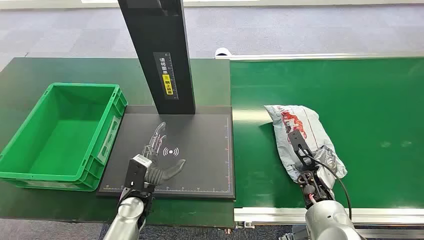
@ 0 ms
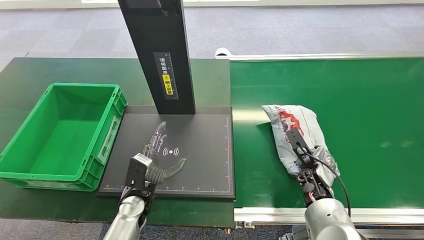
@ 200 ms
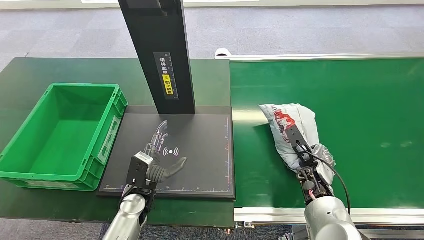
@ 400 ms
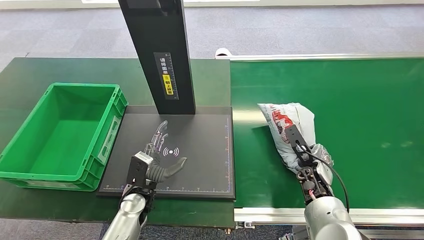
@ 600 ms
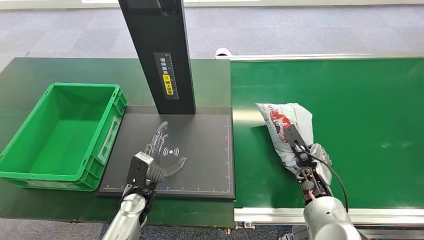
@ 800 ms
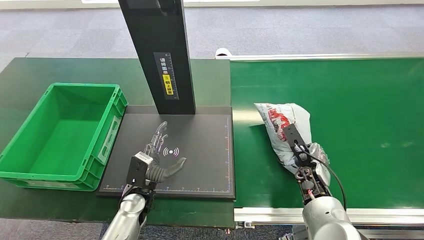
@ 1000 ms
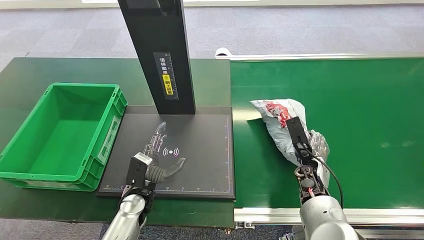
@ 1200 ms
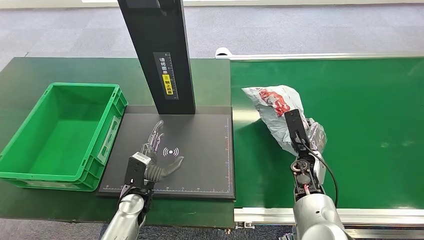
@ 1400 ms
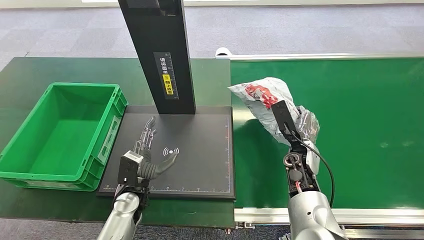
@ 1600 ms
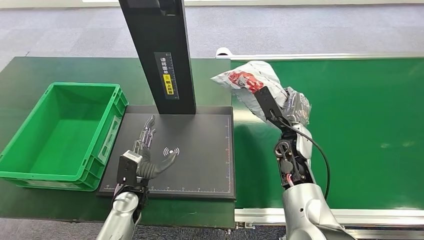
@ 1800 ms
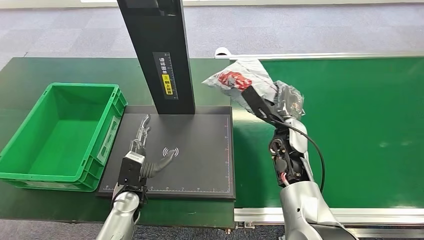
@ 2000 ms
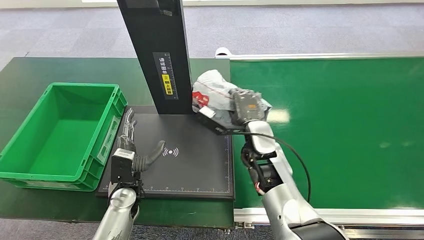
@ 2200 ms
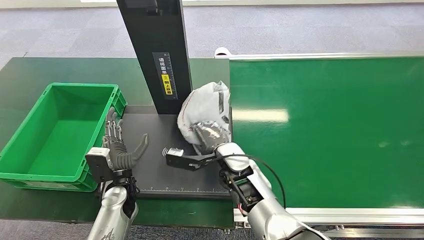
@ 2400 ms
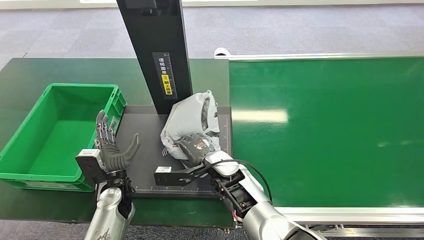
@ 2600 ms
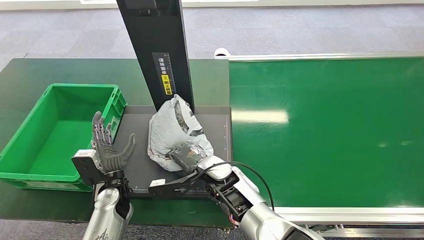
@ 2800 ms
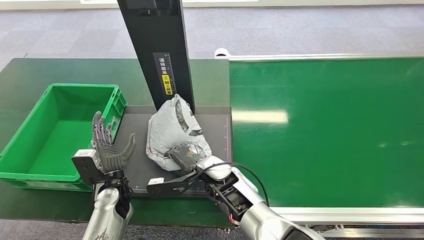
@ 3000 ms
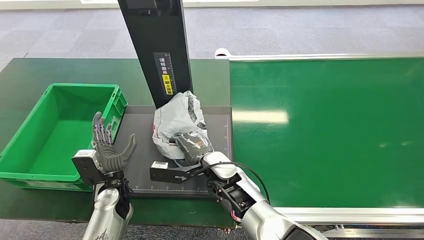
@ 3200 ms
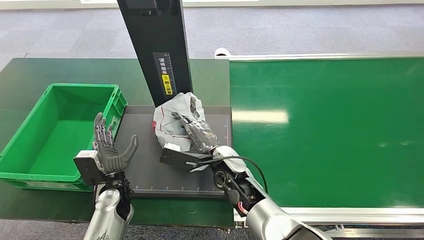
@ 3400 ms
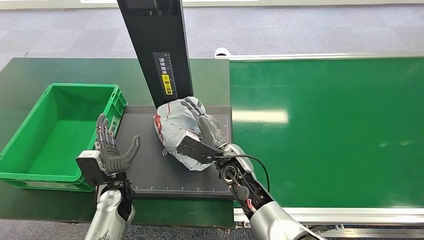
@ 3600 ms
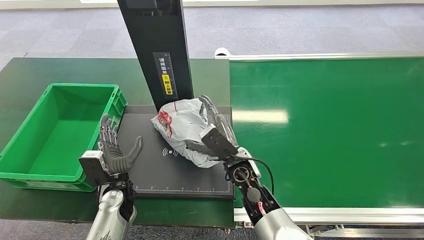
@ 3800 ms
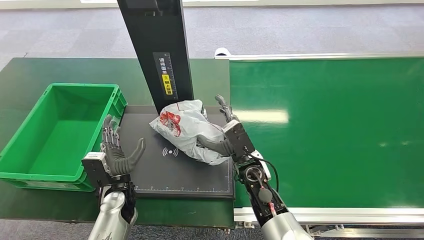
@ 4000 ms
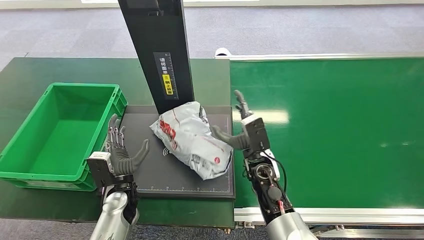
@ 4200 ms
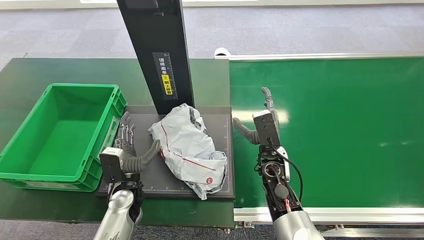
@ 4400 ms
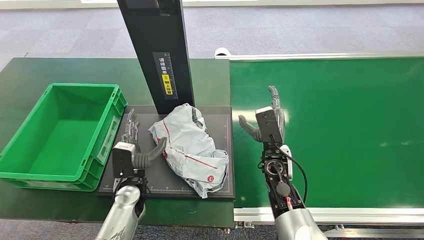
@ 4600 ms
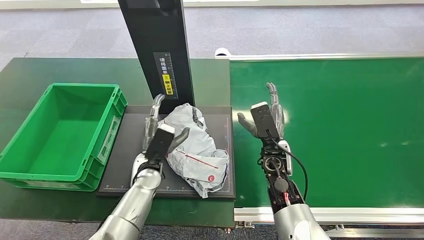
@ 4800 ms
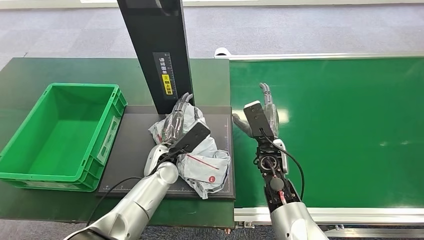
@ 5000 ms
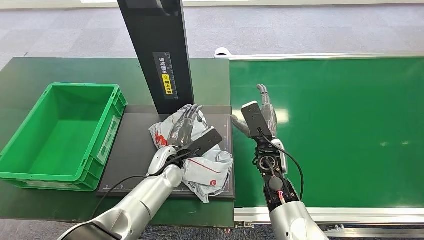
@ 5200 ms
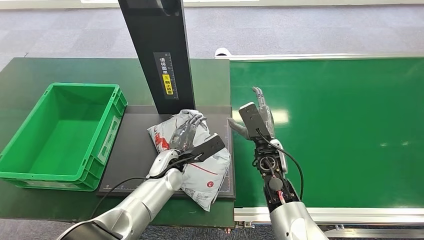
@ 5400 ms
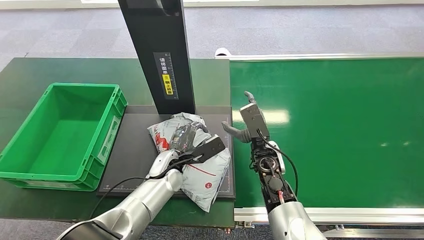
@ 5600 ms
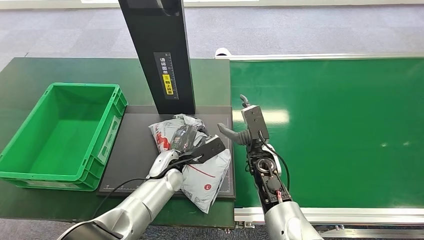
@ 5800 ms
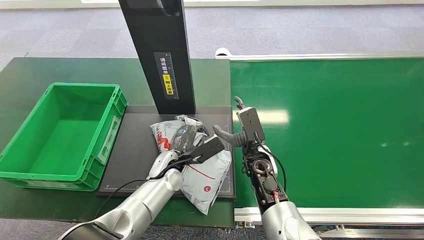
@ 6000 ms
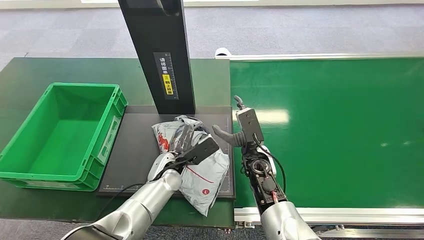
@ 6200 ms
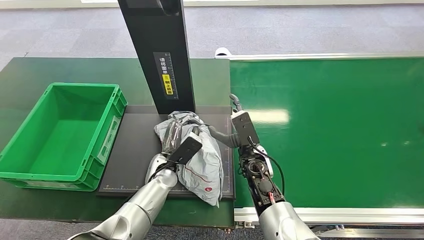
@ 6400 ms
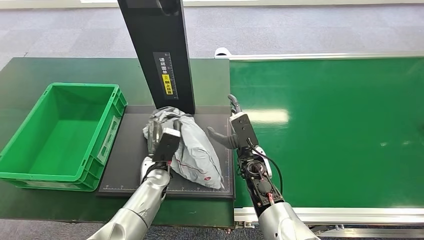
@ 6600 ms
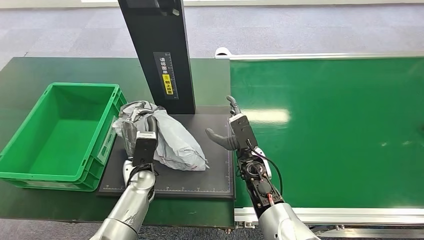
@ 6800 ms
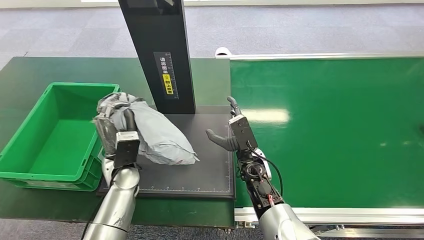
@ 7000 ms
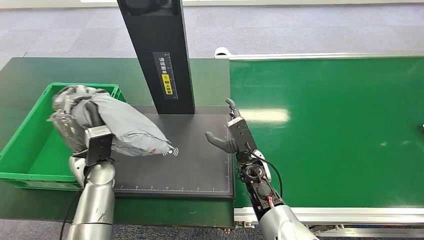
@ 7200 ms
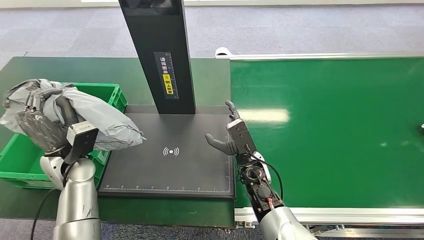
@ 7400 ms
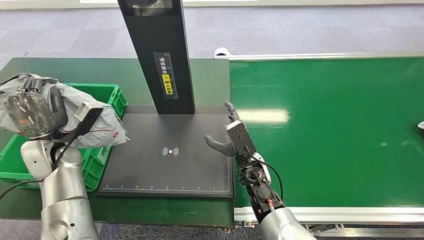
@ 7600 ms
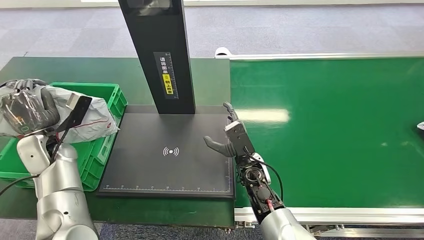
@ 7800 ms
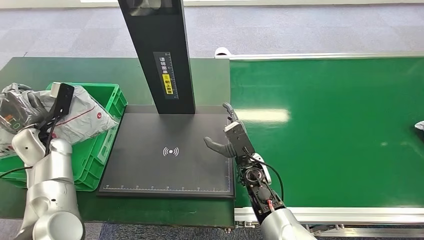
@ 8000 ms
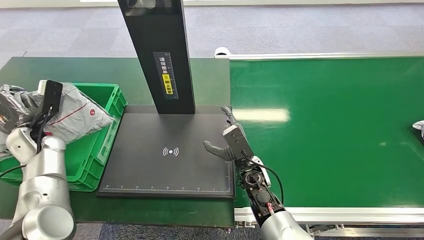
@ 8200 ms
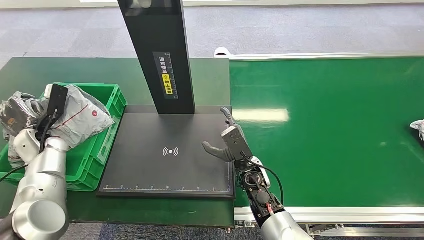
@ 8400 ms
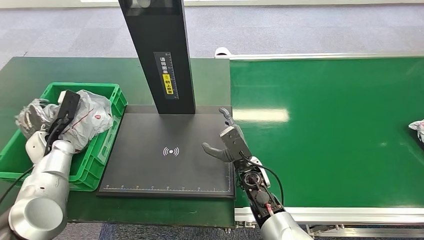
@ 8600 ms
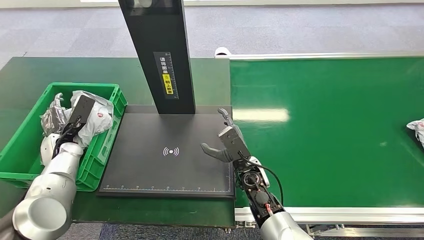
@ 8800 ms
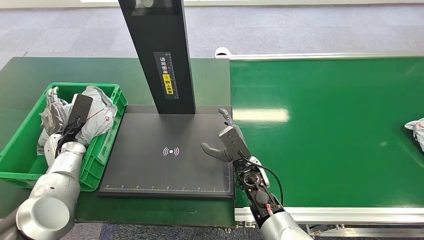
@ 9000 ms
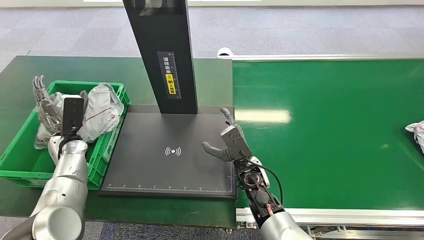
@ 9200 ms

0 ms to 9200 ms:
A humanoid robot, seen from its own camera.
Step, 0 ms to 1400 ms: Pick up the package from the conveyor belt.
Step, 1600 ms to 4200 ms: Place the package onto the inbound machine.
Step, 4400 ms to 6800 ms: Pick up the package from the inbound machine.
Step, 7000 ms to 9200 ms: Place the package into the parcel locker.
3000 ms to 4600 ms: The right hand shifts roughly 15 cm to the right.
4600 ms to 6200 ms: The left hand goes approximately 10 cm to the right.

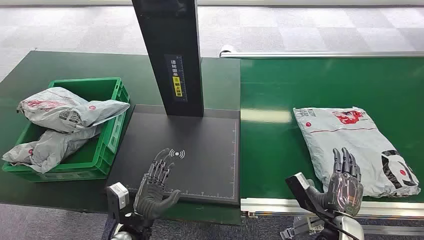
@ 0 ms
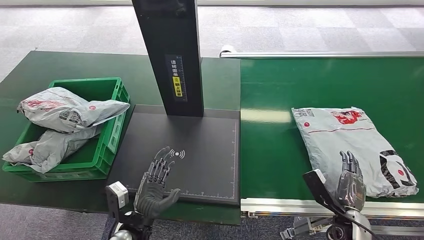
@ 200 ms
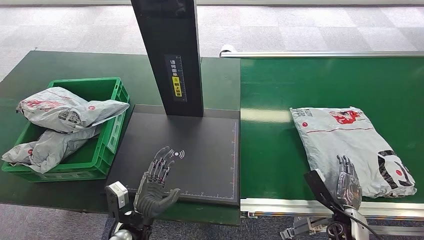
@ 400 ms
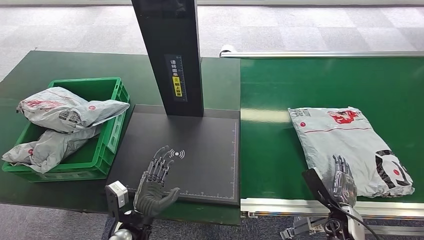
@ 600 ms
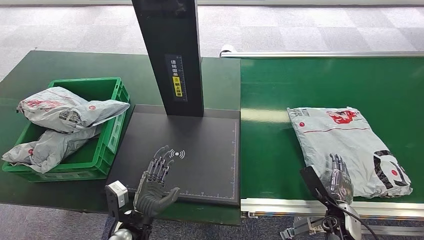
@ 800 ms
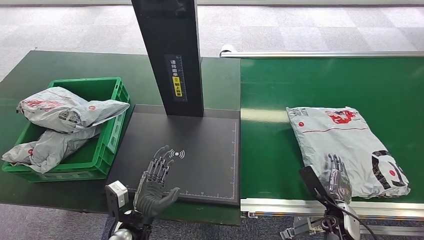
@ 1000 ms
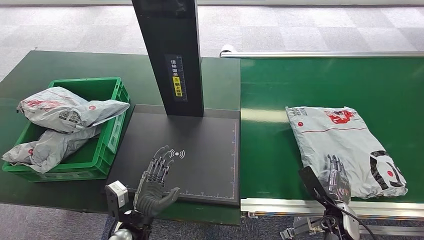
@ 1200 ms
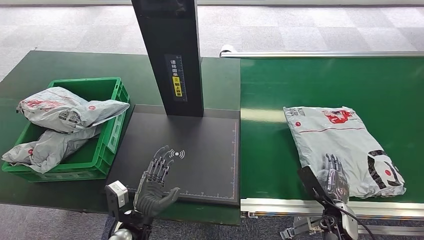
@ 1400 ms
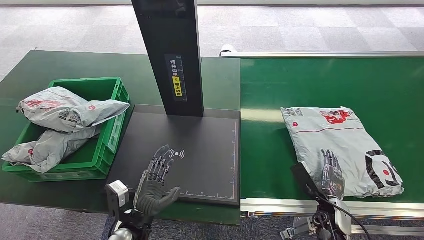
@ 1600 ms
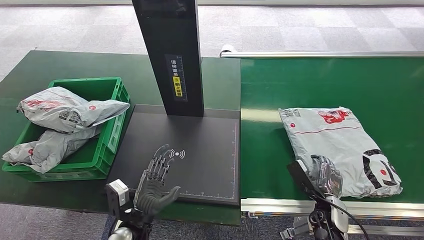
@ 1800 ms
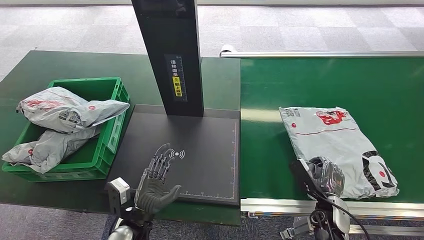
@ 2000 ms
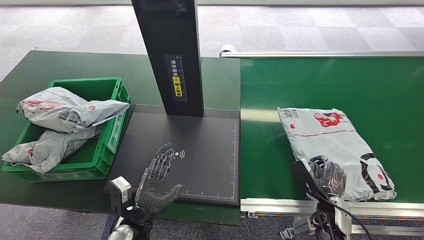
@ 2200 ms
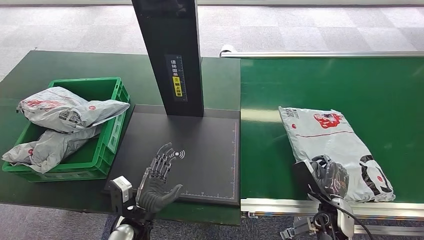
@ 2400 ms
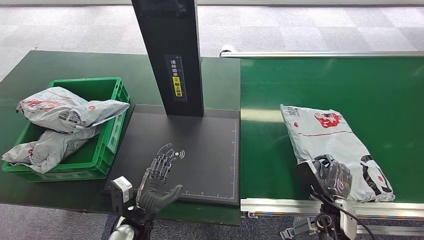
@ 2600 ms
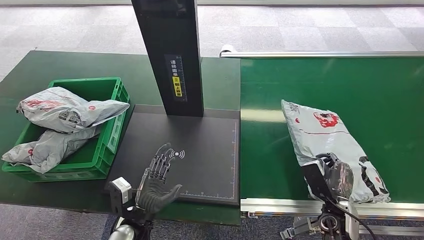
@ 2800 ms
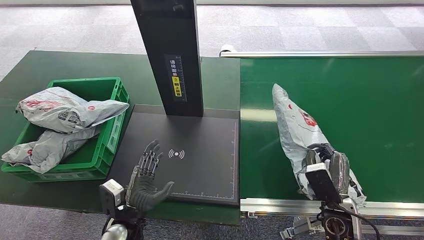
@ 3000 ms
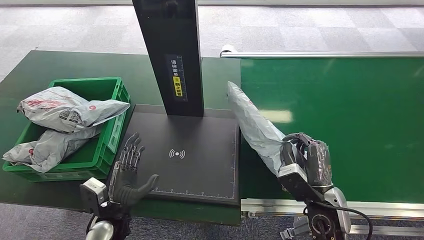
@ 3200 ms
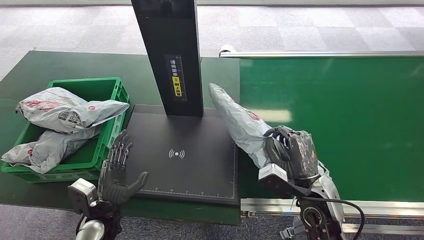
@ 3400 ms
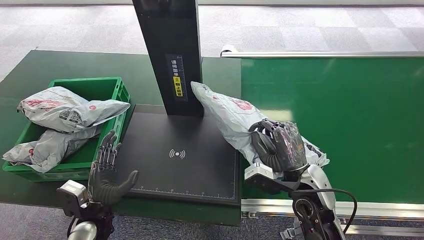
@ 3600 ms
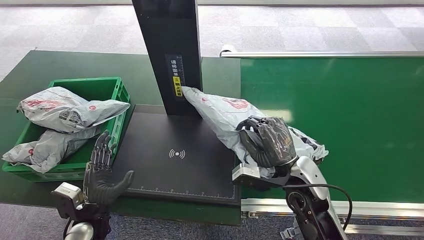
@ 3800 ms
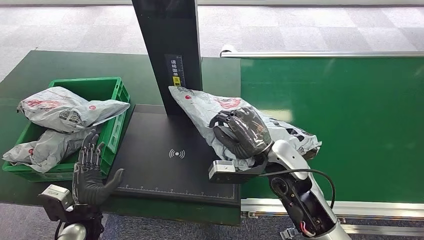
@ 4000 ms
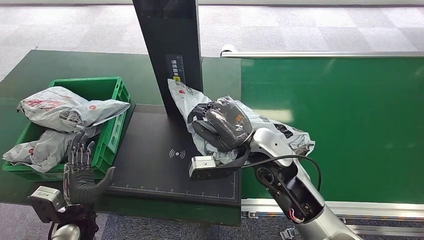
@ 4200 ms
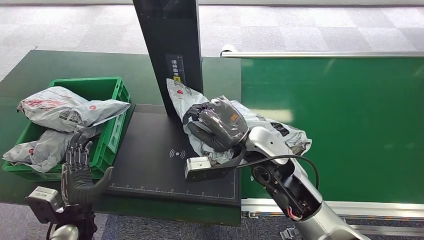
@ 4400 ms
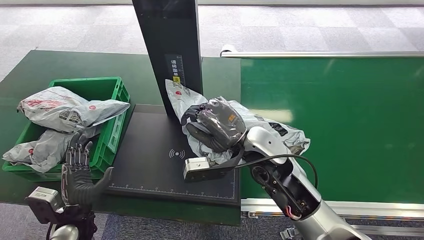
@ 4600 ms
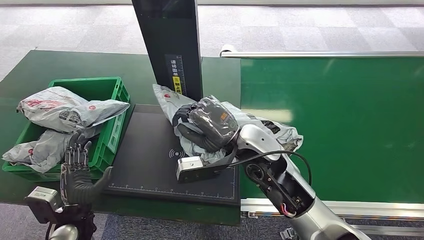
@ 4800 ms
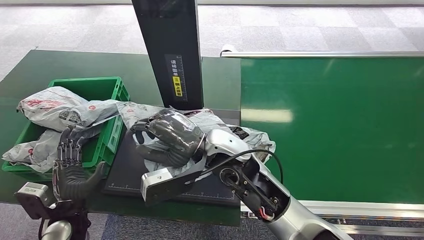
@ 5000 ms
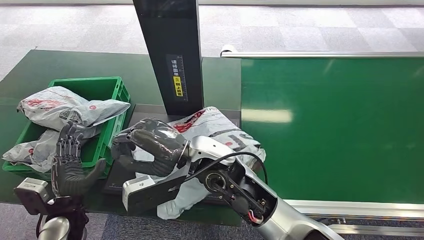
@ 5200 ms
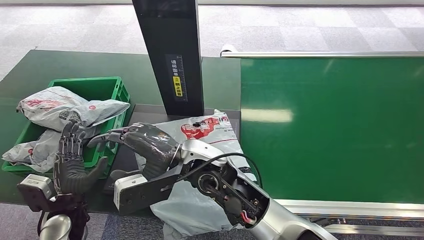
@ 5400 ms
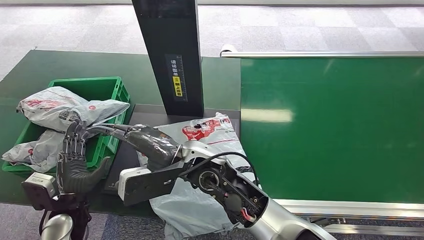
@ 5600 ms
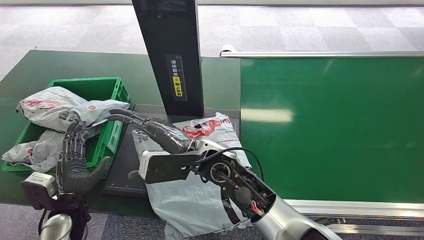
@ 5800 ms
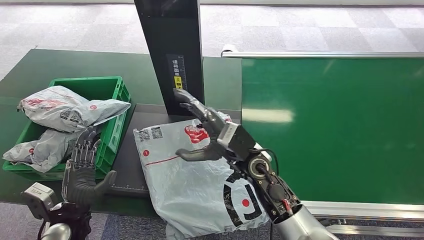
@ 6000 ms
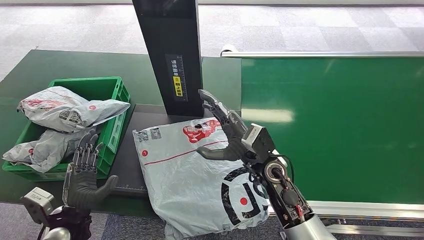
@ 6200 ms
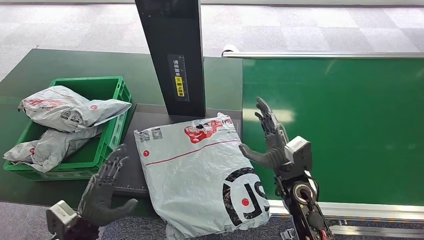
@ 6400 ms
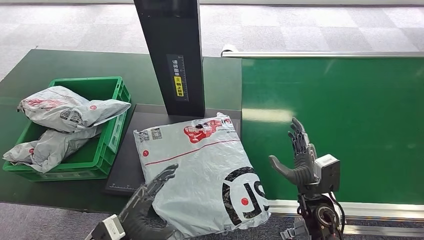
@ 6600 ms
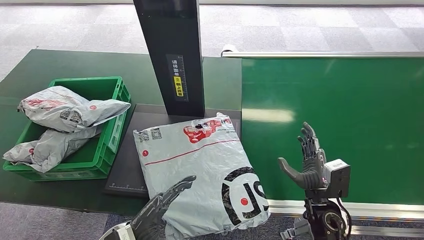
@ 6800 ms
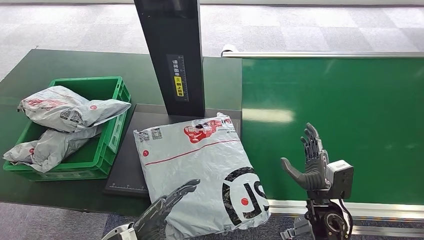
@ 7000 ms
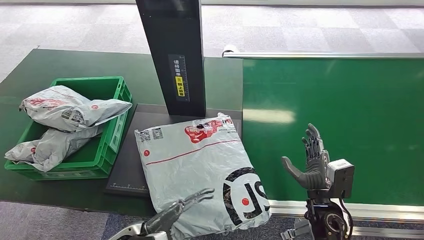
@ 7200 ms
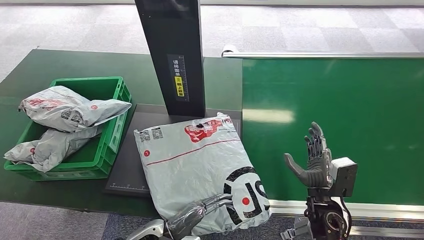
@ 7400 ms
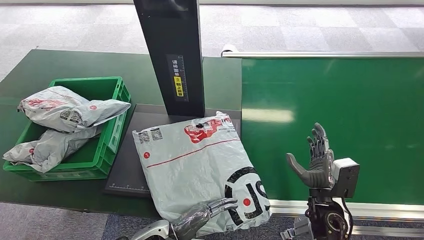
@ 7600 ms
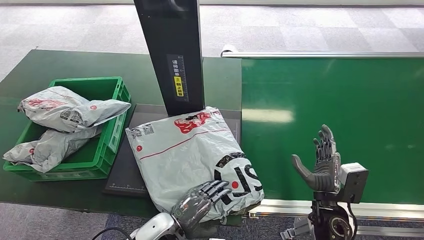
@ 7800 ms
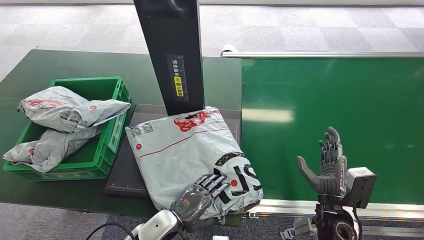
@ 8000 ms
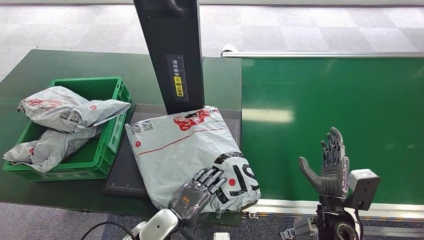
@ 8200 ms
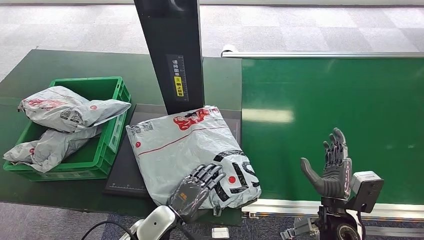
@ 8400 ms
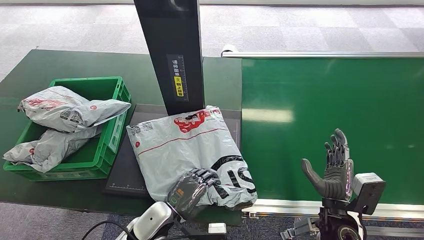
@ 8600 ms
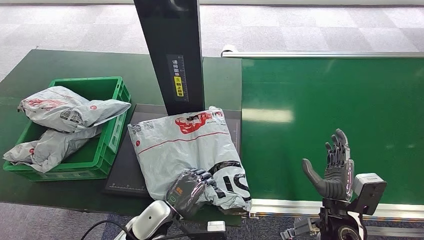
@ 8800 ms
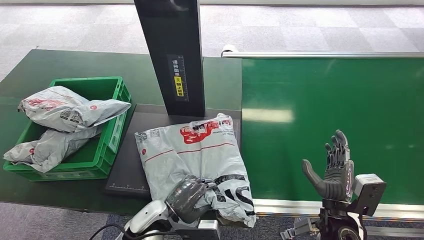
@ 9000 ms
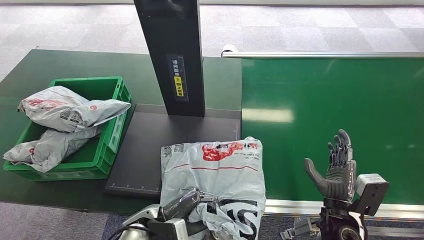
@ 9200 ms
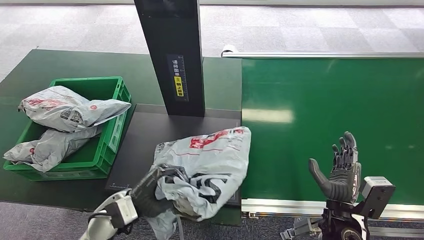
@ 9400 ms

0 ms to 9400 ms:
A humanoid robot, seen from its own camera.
Step, 0 ms to 3600 ms: Pick up the package from the conveyor belt.
Step, 3800 ms to 6600 ms: Place the package onto the inbound machine.
1600 ms to 3200 ms: The left hand ends up roughly 5 cm from where it was, while the right hand shifts about 15 cm upward and to the left.
3200 ms to 4800 ms: The right hand heads to the left, upward and forward, covering approximately 20 cm. Meanwhile the left hand travels to the left by about 10 cm.
6200 ms to 7800 ms: The left hand shifts approximately 20 cm to the right; the right hand moves to the right, backward and downward, roughly 20 cm.
7800 ms to 9400 ms: The left hand travels to the left and upward by approximately 10 cm.
